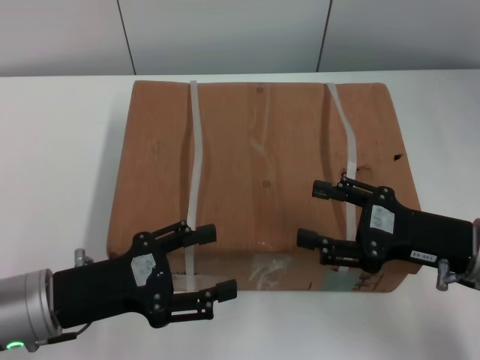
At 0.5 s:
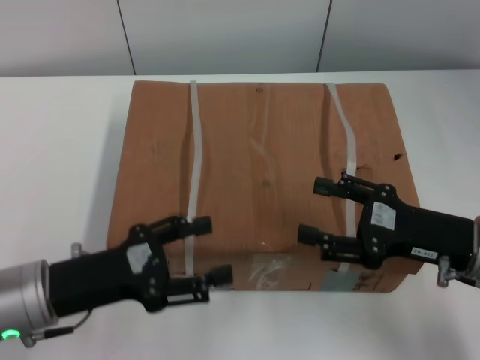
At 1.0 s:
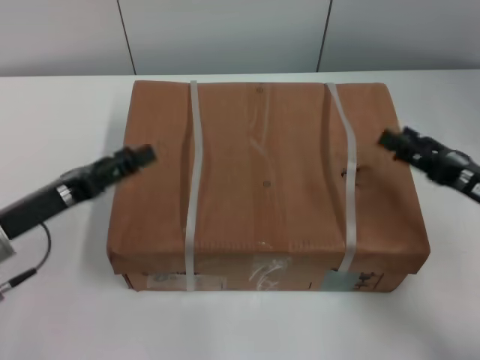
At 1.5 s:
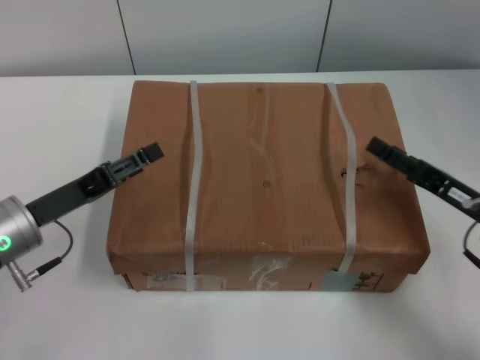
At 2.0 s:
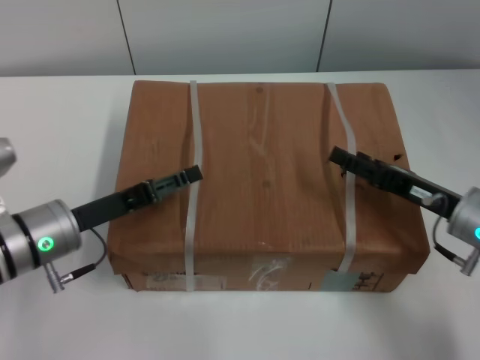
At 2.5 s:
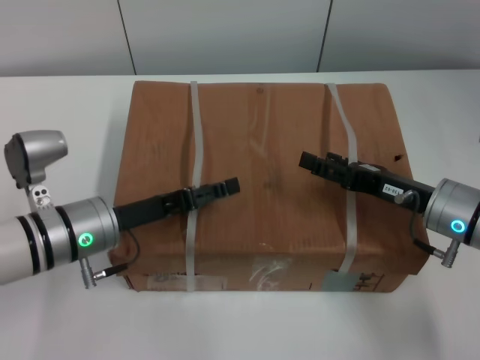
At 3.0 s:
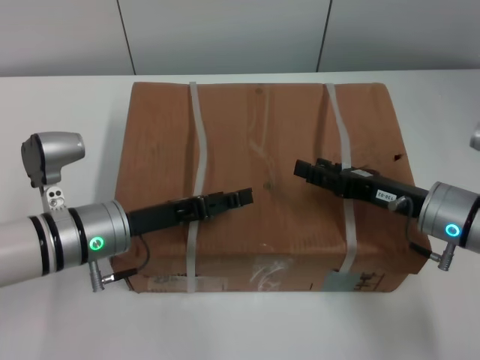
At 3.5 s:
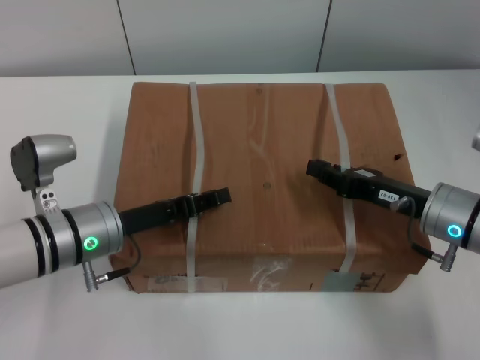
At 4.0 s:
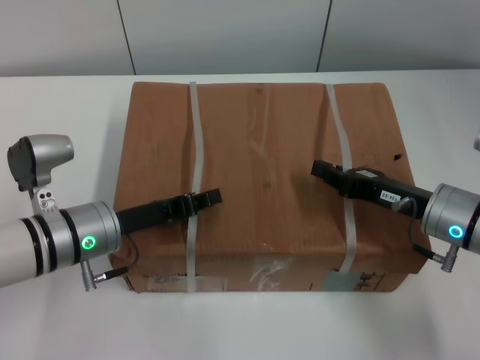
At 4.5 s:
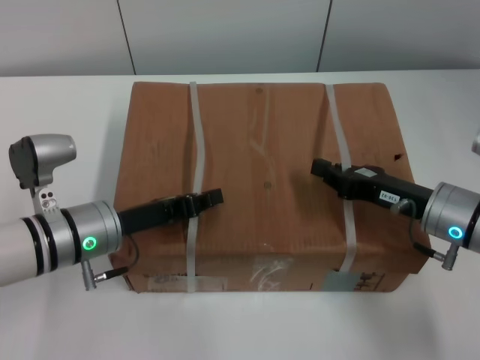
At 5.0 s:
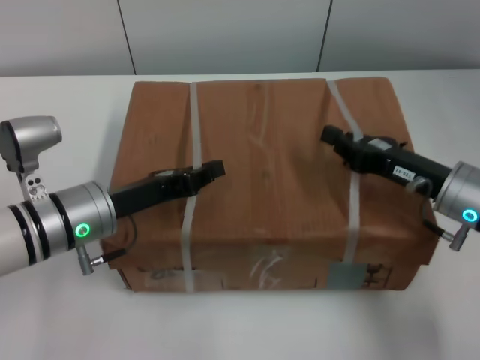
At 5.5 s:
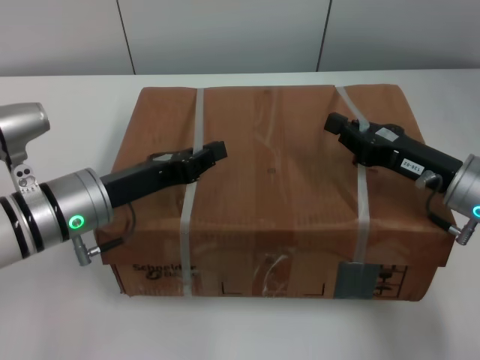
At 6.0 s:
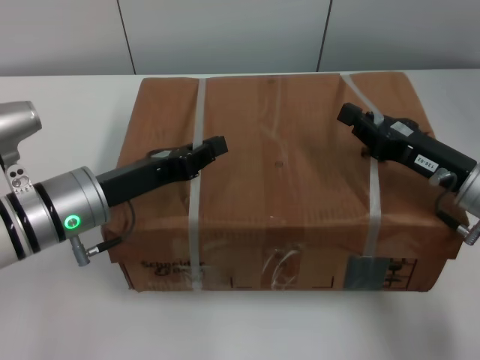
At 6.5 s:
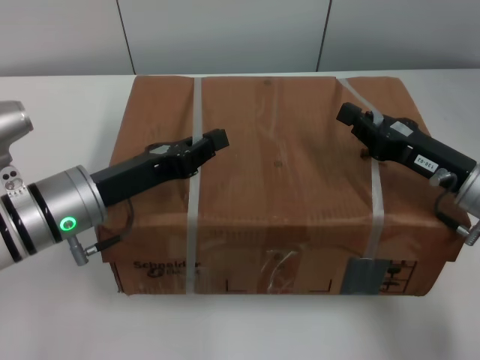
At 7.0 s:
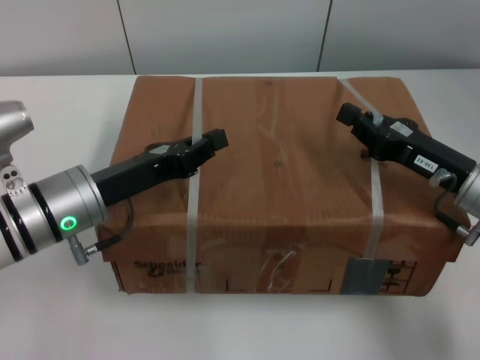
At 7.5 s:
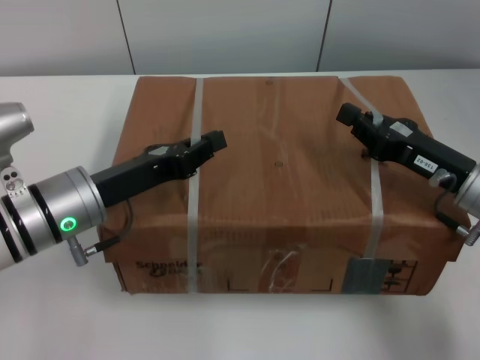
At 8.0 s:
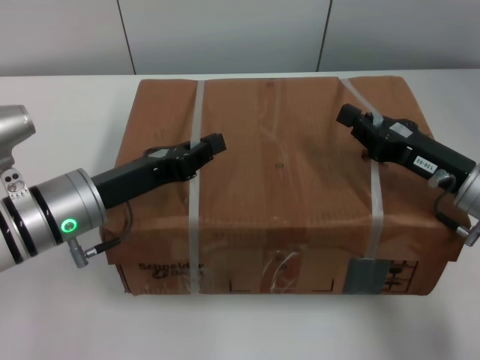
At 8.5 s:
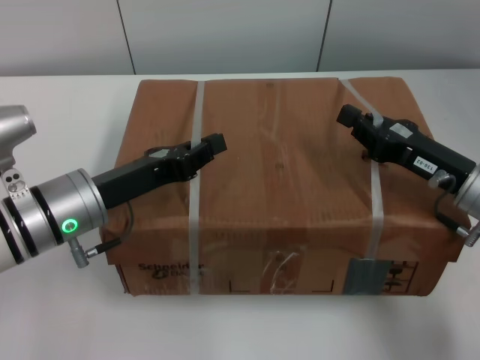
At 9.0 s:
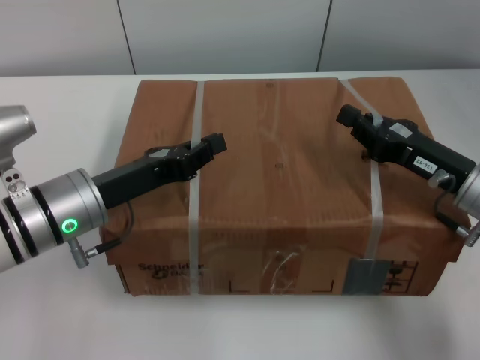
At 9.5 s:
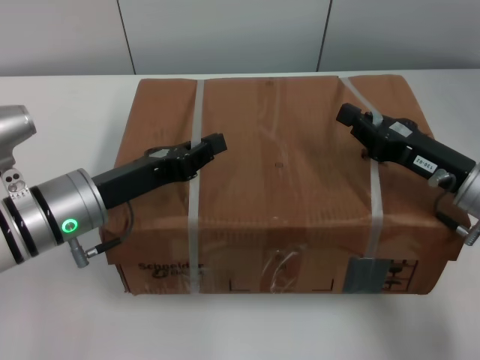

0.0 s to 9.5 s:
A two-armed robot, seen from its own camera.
Task of the whole recording: pick up the box from the table with both arms.
Step, 0.0 to 3.5 s: Grasp the bandage with left gripper.
Step, 0.0 to 3.5 s: Grasp the bandage with right gripper.
Step, 4.0 to 6.0 s: Lift the box with left gripper.
Step, 4.0 to 6.0 s: Lift the box with right gripper.
0.0 to 2.0 s: The right gripper changes place by some 5 cm; the left gripper shifts roughly 10 cm forward.
2.0 to 4.0 s: The right gripper closes. Meanwhile the left gripper closes.
5.5 to 7.5 s: The grippers stay close to where they were, moving slightly.
7.5 to 9.5 s: Neither gripper changes place.
